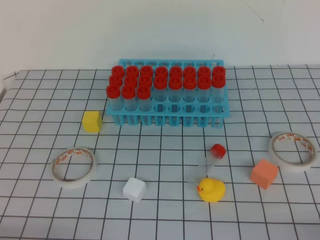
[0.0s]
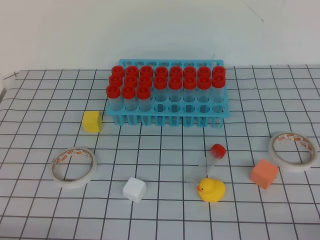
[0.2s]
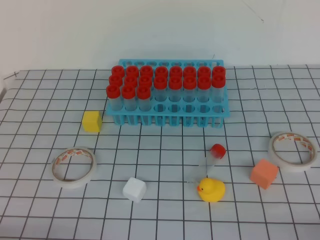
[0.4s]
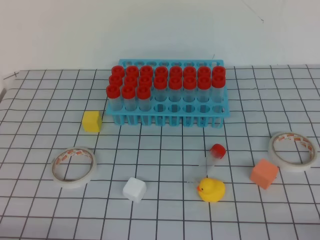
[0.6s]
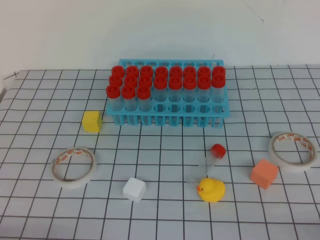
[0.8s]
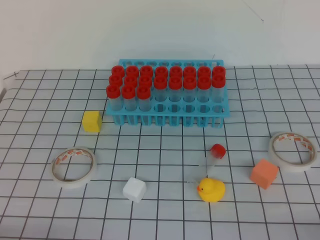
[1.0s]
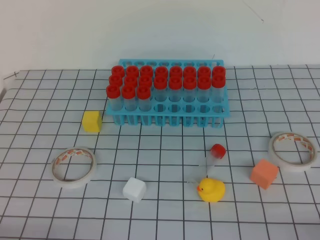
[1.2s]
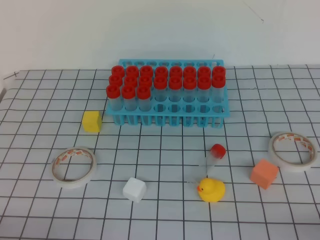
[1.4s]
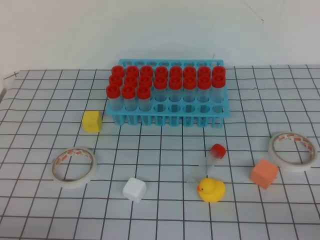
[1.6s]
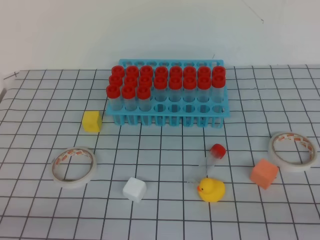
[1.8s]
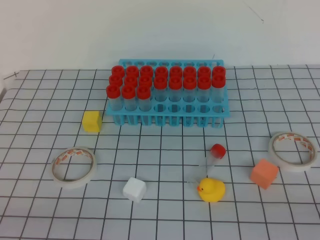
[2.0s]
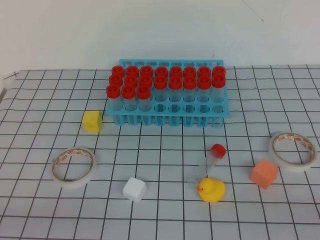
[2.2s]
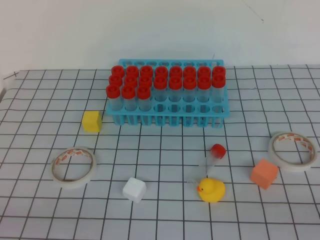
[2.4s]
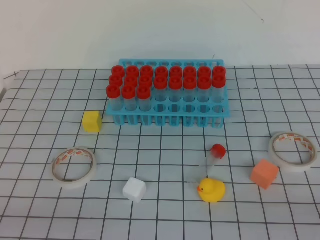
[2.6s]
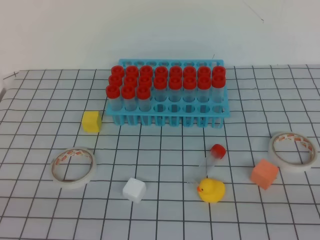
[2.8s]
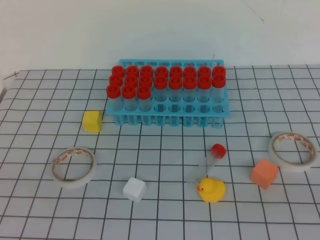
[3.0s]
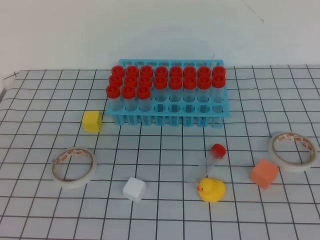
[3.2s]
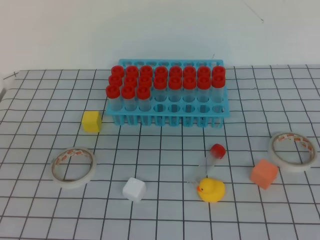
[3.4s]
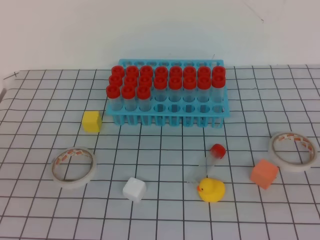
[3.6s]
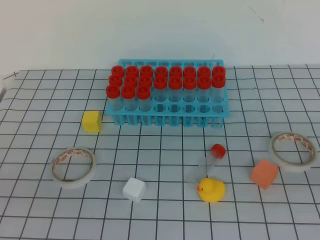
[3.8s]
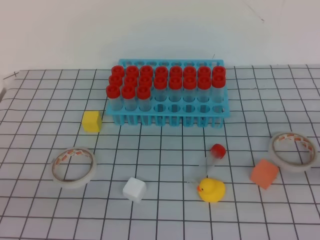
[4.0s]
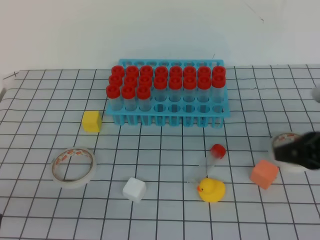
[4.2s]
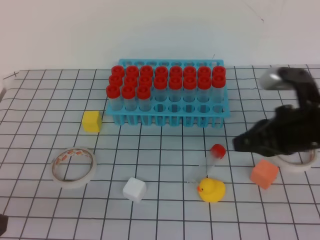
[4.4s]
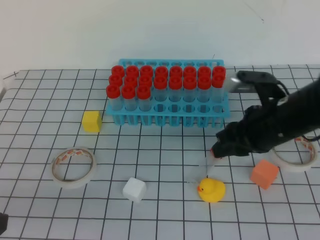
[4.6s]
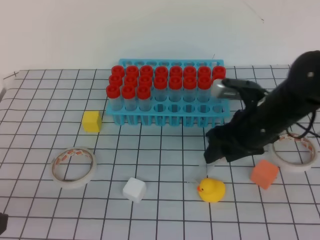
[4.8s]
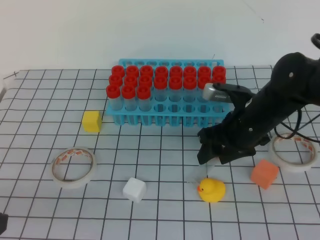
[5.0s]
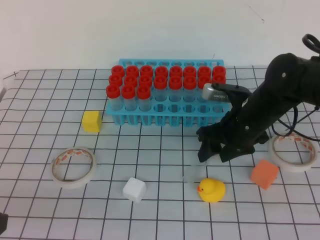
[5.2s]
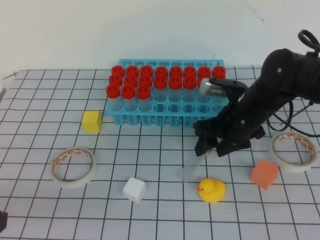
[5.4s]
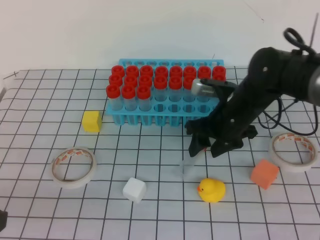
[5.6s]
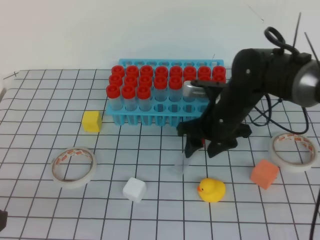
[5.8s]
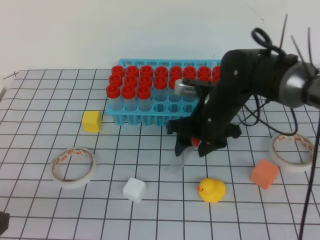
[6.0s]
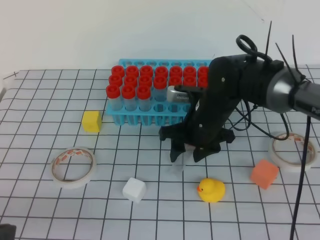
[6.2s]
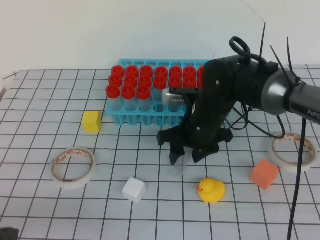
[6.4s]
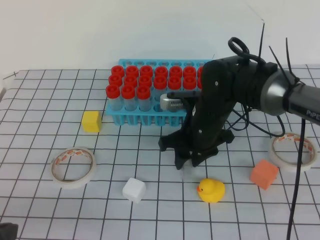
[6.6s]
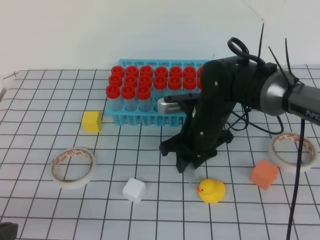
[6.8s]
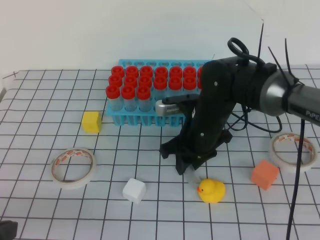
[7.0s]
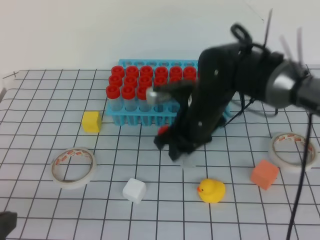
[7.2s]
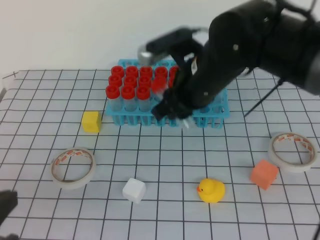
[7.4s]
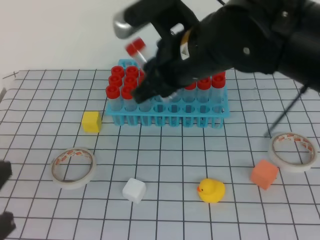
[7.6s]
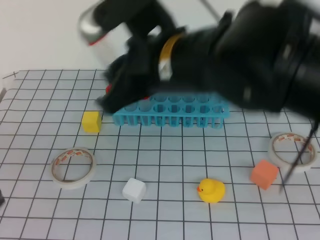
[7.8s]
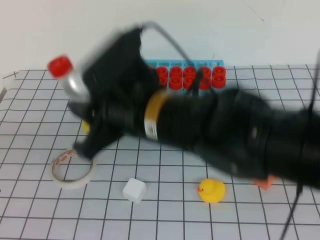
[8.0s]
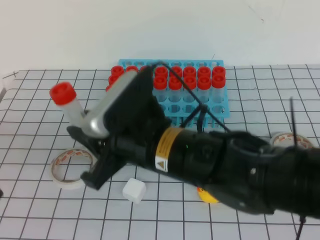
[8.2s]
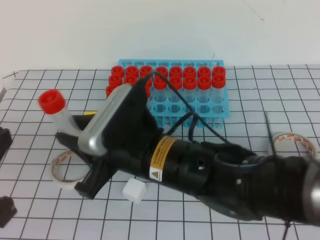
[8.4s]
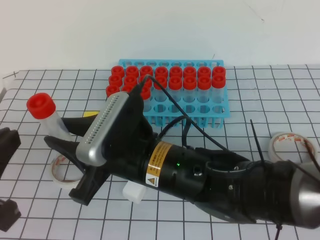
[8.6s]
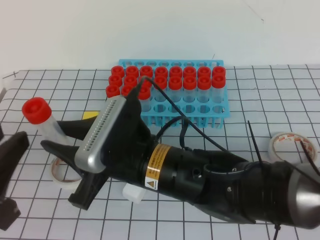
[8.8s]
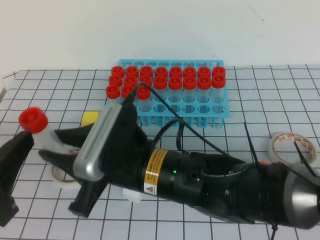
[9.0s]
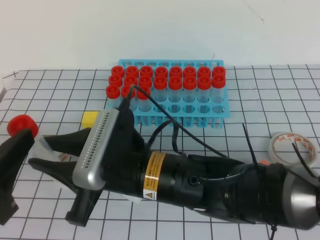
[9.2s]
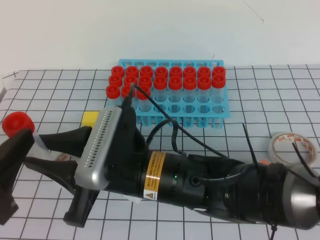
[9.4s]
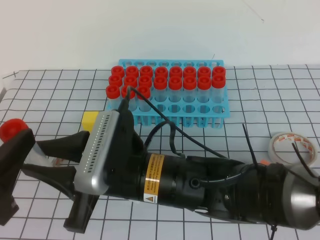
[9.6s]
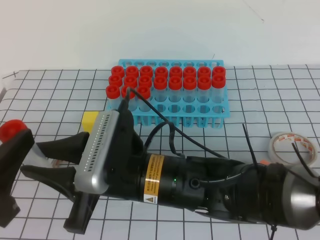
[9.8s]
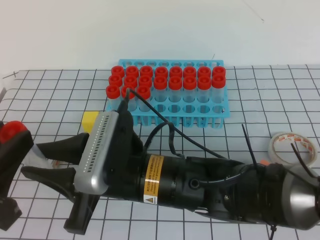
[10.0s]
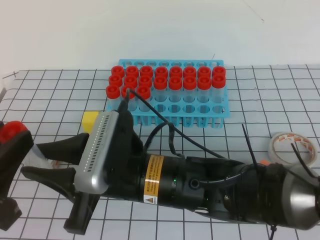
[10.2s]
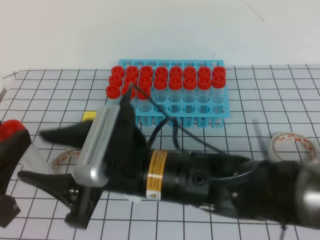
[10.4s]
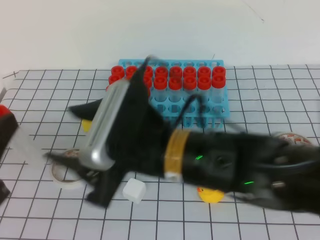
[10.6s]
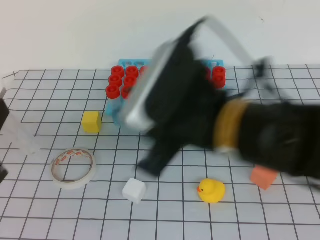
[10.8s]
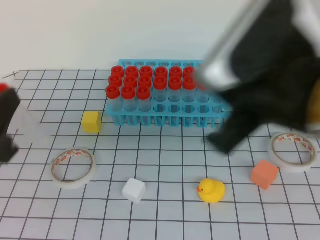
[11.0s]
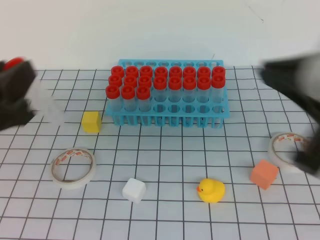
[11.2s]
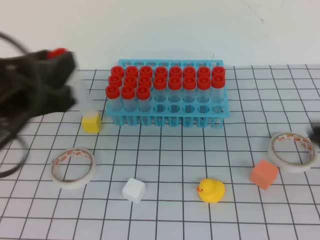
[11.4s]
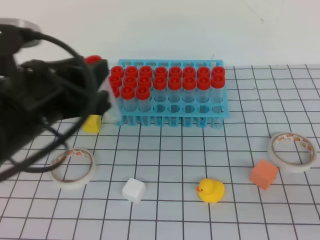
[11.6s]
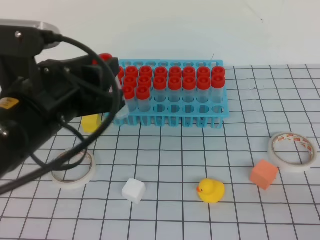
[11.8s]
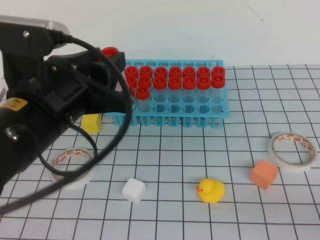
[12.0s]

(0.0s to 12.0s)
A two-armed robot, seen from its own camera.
3.0s - 4.4s: The right gripper goes about 25 cm forward and to the left.
4.4s - 6.0s: The right gripper goes about 20 cm to the left, forward and downward, and opens.
6.0s - 7.6s: The right gripper goes about 15 cm upward and backward, and closes its fingers.
7.6s - 9.0s: The left gripper opens its fingers. Meanwhile the right gripper travels backward, downward and to the left by about 15 cm.
9.0s - 10.4s: The right gripper opens up.
10.4s - 12.0s: The left gripper moves forward and to the right, roughly 15 cm; the right gripper shifts some 35 cm to the right and backward, and closes.

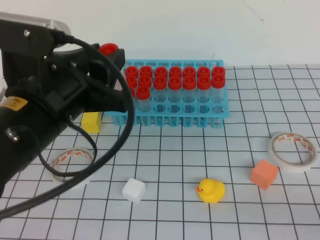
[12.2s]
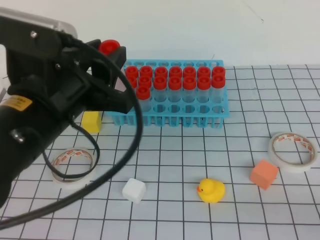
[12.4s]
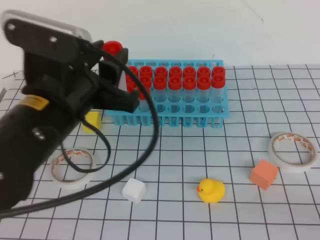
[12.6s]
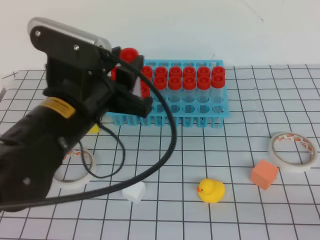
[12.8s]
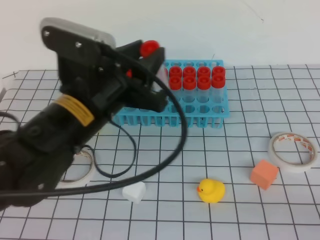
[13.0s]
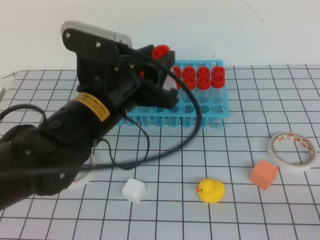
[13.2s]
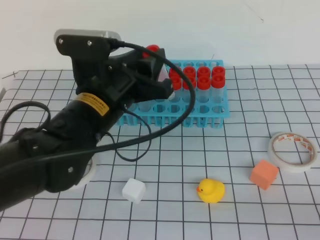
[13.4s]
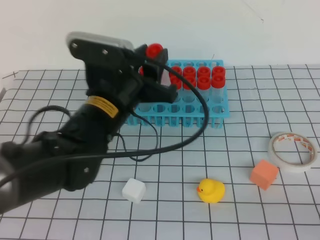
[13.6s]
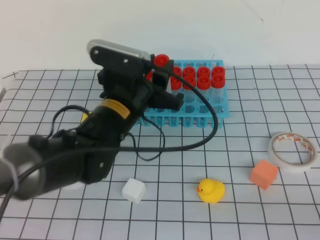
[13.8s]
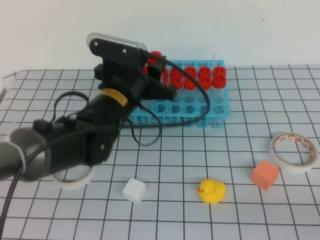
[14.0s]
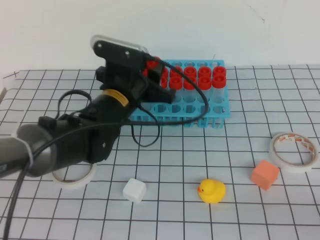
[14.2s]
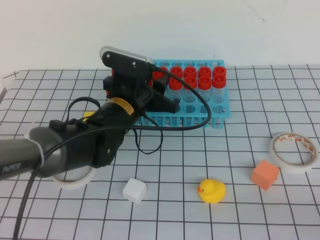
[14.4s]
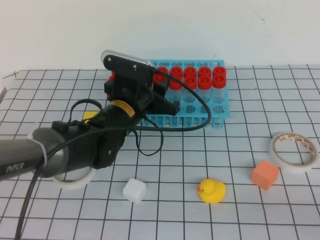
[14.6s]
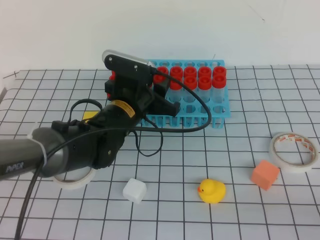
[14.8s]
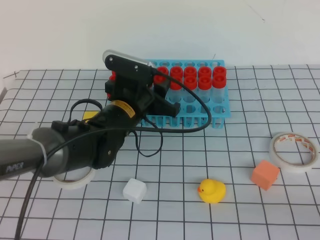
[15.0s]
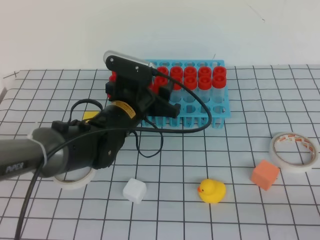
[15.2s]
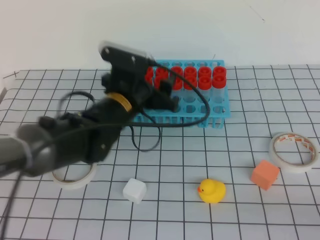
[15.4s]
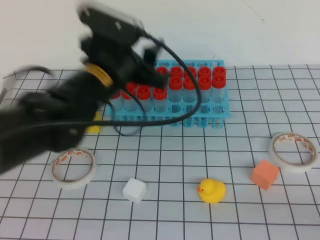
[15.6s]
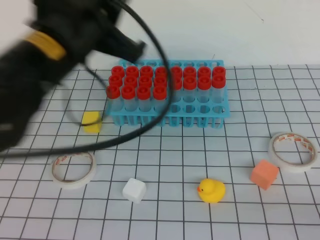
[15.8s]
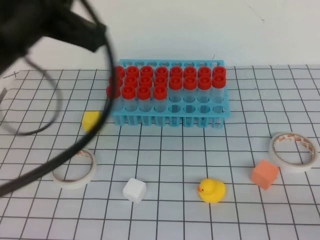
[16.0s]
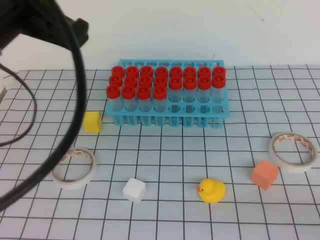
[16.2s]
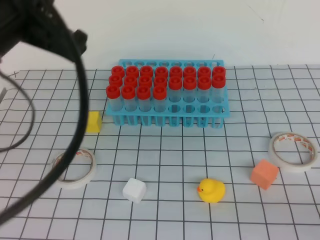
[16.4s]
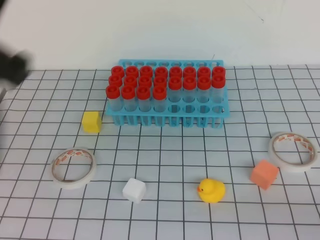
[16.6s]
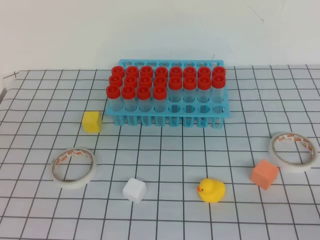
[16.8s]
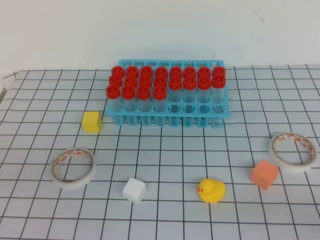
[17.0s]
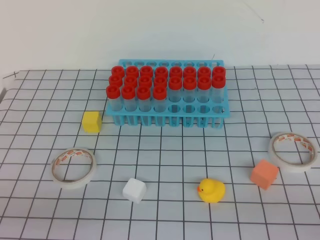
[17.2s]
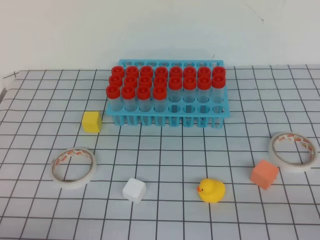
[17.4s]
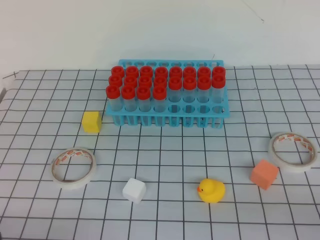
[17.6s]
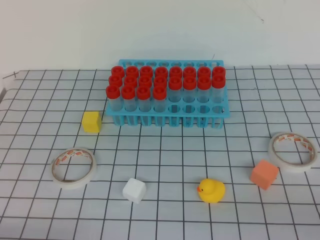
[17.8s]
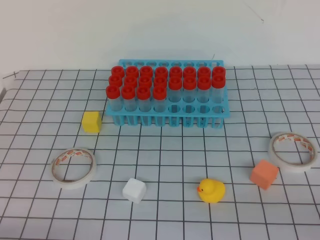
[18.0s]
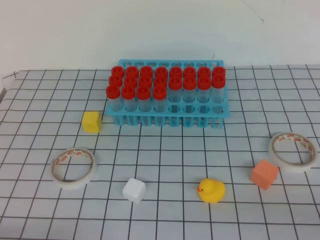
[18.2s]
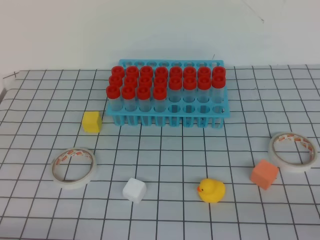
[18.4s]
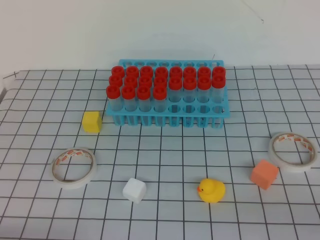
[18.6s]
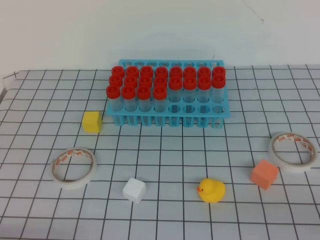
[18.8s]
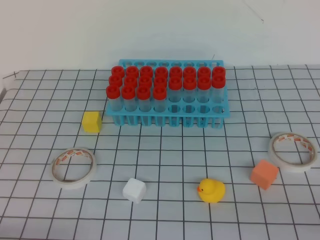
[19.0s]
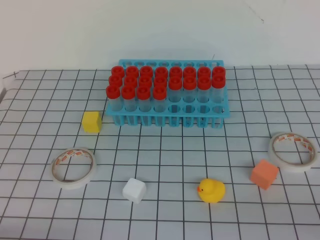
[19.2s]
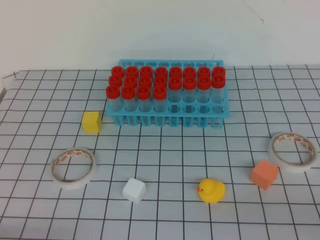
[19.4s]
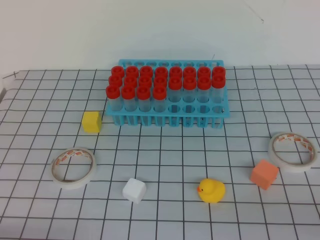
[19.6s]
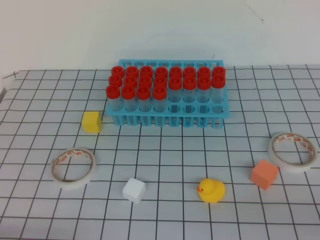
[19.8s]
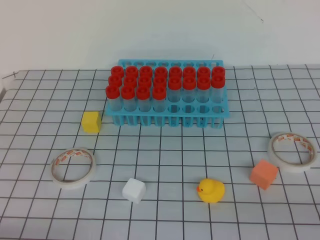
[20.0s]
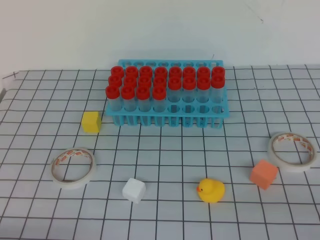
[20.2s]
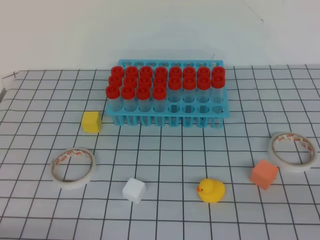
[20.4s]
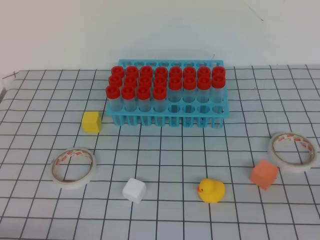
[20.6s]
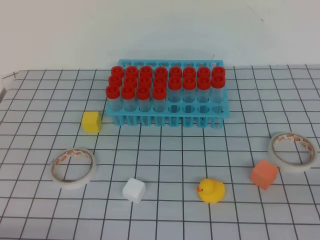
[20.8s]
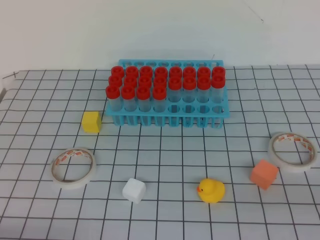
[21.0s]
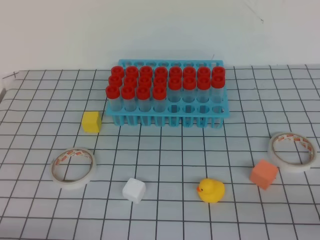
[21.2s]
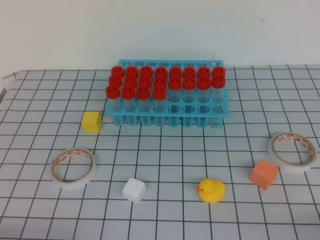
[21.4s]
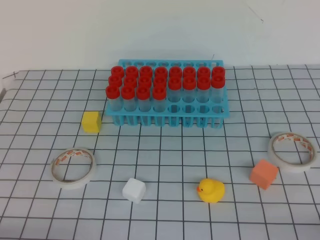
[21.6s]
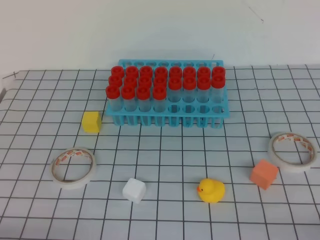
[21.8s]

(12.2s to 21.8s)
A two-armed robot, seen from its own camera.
12.2s - 13.8s: The left gripper goes roughly 15 cm forward, downward and to the right.
13.8s - 15.4s: The left gripper opens.
15.4s - 17.0s: The left gripper is displaced backward and to the left by roughly 30 cm, and closes its fingers.
17.0s - 18.6s: The left gripper goes roughly 15 cm downward.
